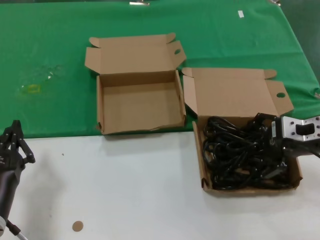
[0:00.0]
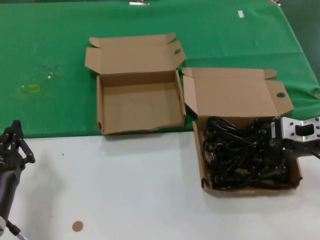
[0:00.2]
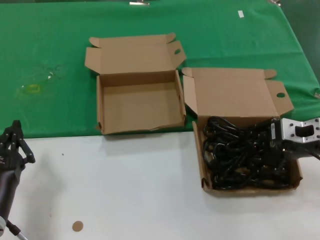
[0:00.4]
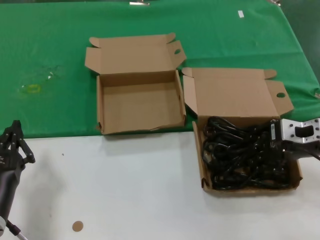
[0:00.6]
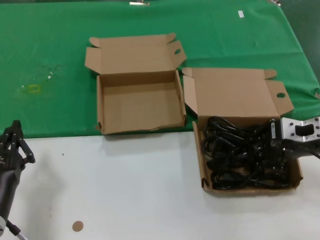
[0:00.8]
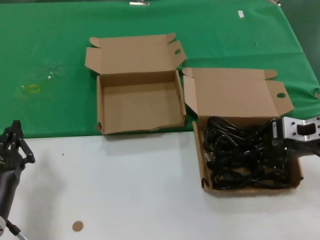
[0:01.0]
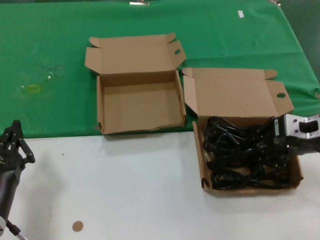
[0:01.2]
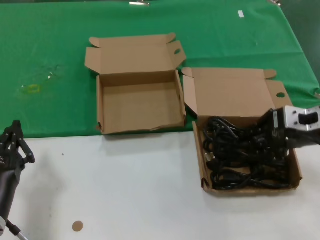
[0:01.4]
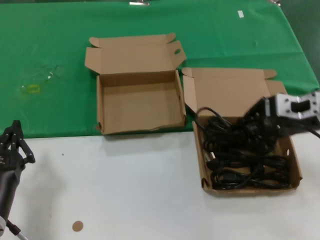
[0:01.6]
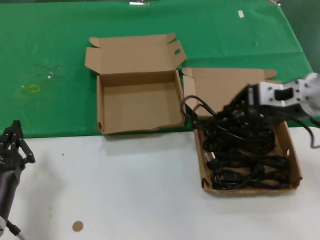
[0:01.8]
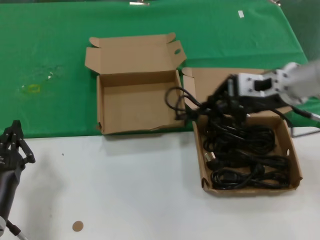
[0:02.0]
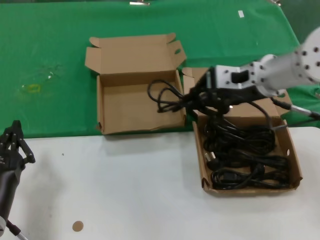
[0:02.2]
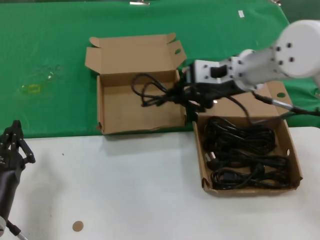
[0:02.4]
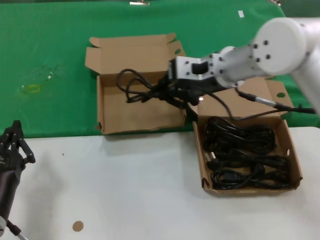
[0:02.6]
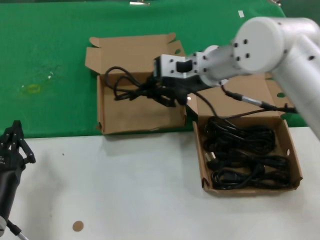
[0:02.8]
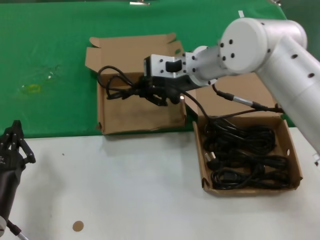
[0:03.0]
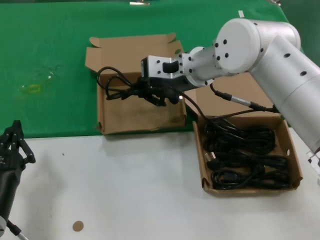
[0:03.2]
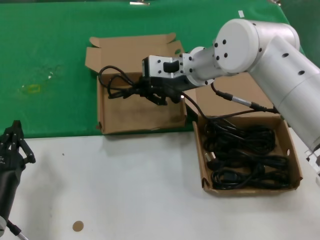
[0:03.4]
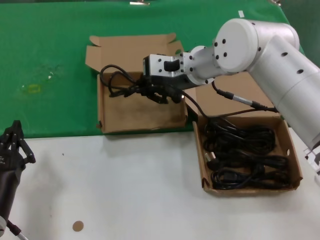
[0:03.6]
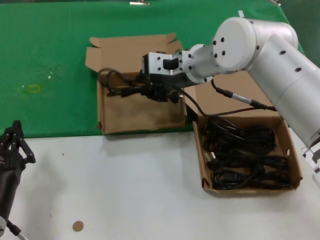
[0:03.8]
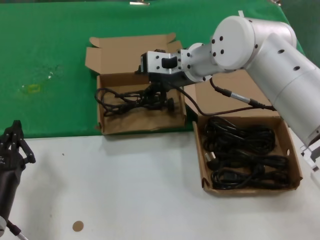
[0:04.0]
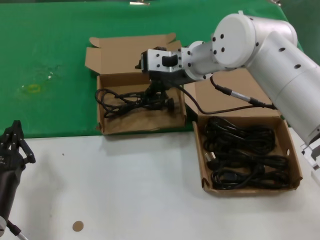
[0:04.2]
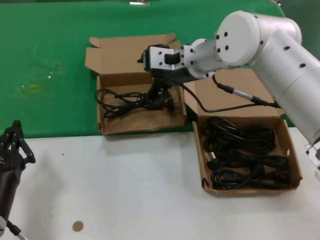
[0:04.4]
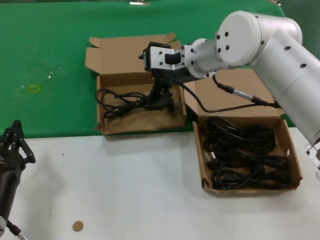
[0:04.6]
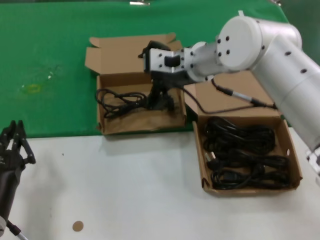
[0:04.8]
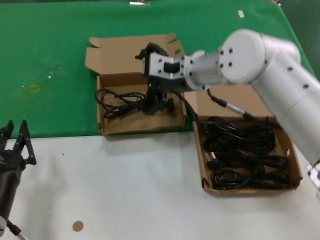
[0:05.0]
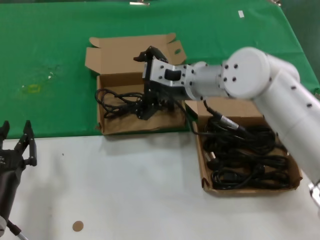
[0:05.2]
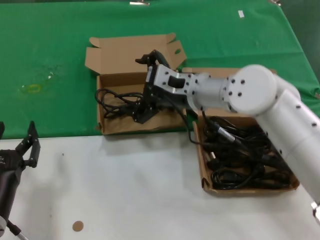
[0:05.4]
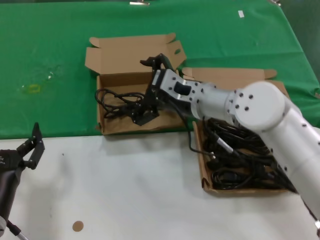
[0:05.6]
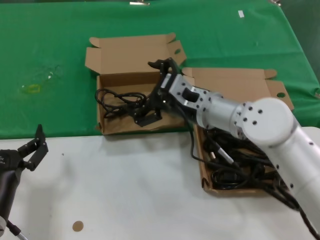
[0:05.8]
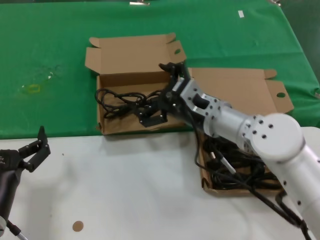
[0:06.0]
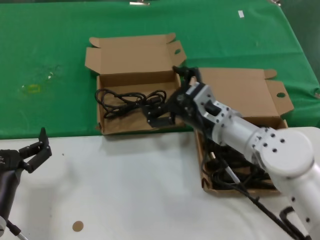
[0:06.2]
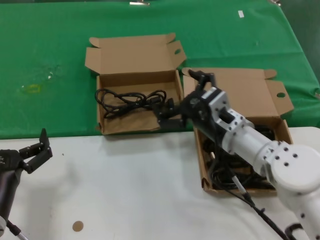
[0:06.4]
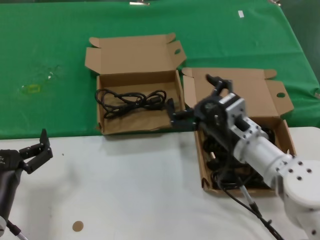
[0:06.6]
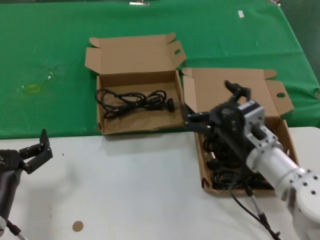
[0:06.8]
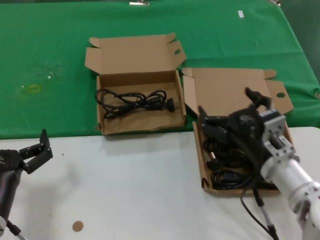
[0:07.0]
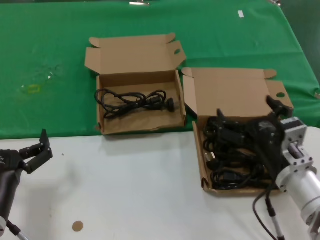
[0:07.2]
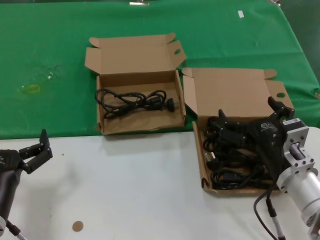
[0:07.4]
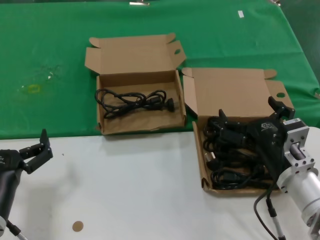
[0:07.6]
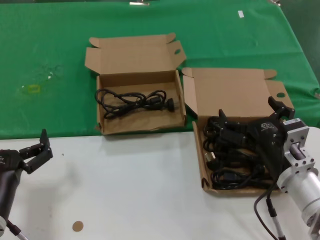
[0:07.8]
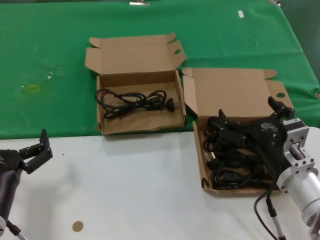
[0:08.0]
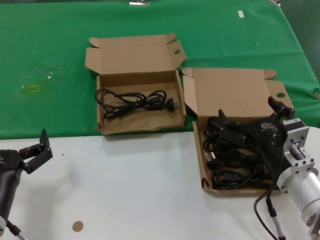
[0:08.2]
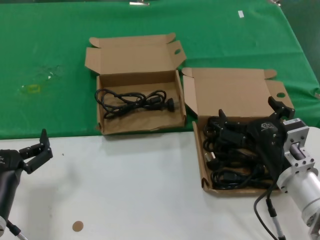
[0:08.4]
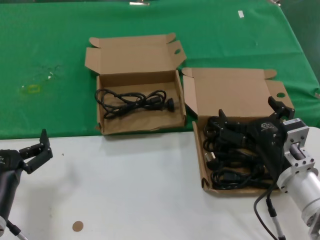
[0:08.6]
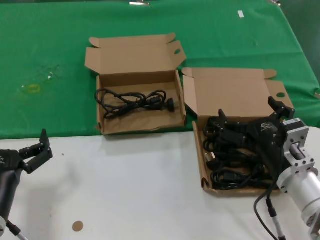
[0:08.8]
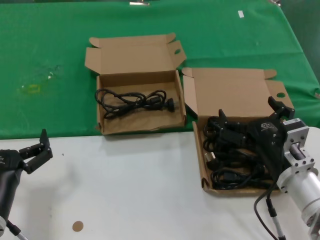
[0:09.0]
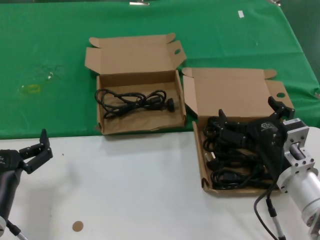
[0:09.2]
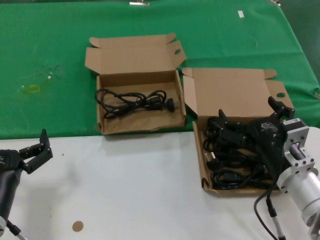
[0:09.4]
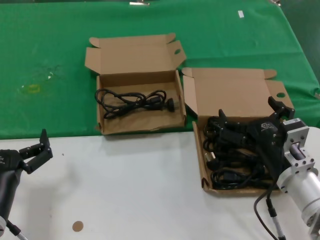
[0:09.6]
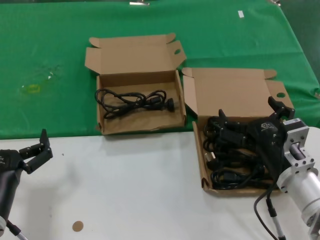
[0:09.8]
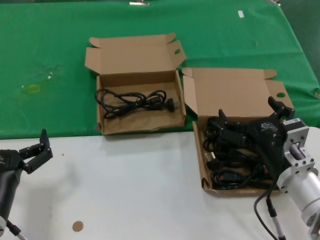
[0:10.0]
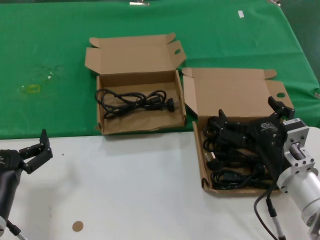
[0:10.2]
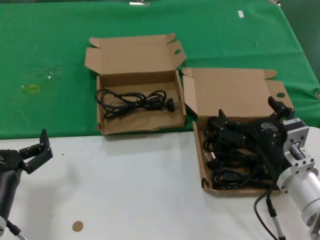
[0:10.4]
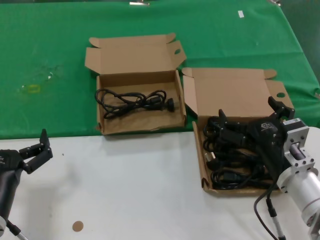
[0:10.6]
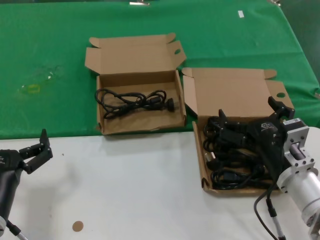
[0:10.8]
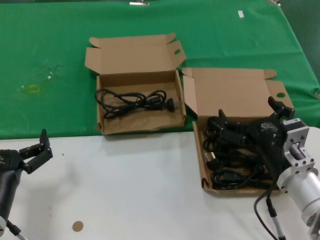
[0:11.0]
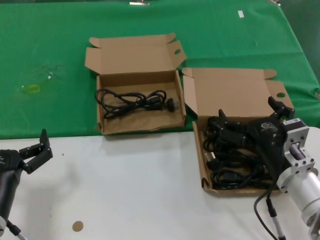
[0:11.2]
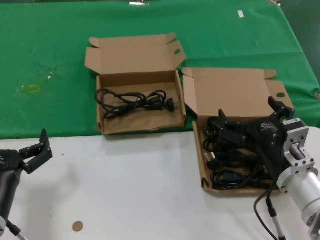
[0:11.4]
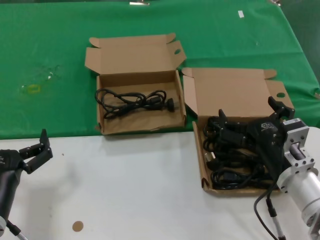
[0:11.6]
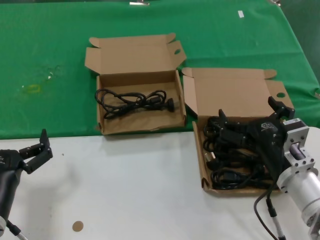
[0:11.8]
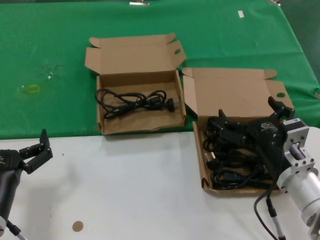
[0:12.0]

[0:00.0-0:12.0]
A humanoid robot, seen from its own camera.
Task of the whole recording: take the parts from the box containing them and put them into an empty box.
Step, 1.2 to 3.8 s: Place the data cable in the another box.
0.0 to 1.6 s: The right hand shifts by roughly 5 cm.
1.6 to 3.0 s: The right hand moves to the left and forward, roughly 25 cm.
3.0 to 4.4 s: The hands make only small movements.
4.4 to 6.0 s: The right hand heads downward and backward, covering some 15 cm.
6.0 to 7.6 s: The right hand goes roughly 20 cm backward, to the right and downward.
7.6 to 12.0 s: Both hands stay about where they are.

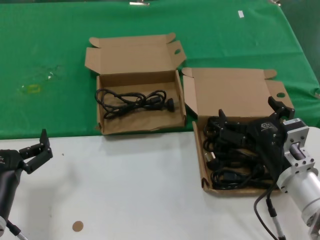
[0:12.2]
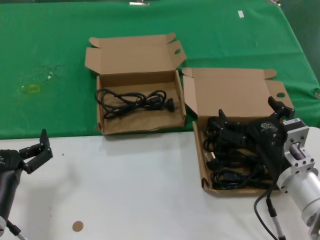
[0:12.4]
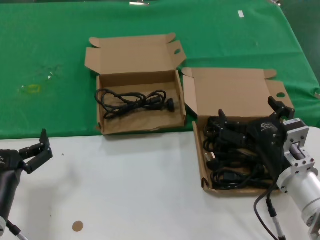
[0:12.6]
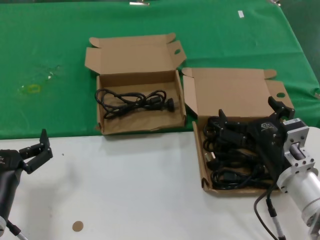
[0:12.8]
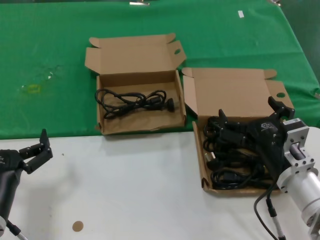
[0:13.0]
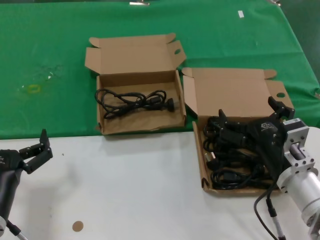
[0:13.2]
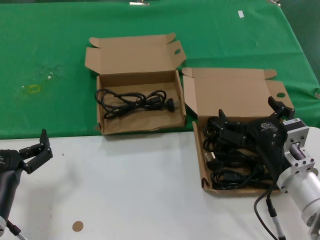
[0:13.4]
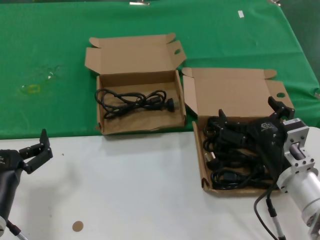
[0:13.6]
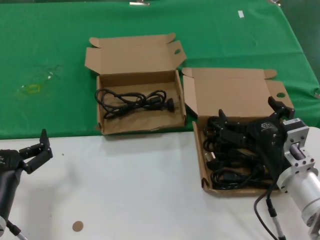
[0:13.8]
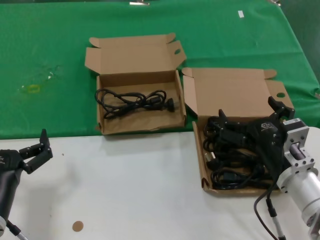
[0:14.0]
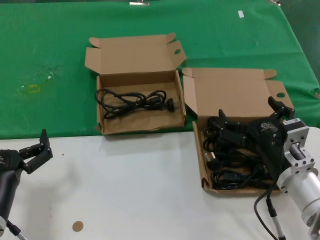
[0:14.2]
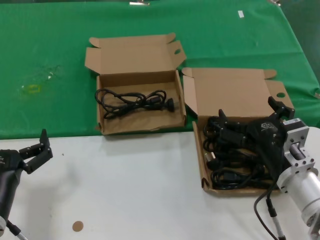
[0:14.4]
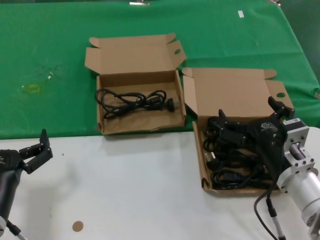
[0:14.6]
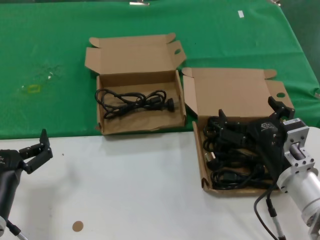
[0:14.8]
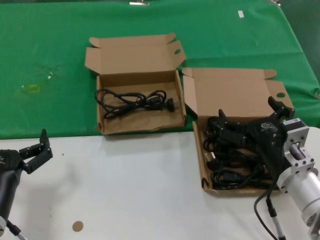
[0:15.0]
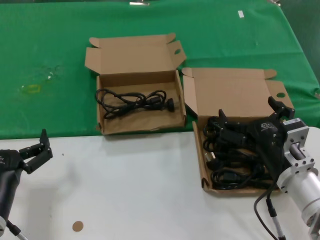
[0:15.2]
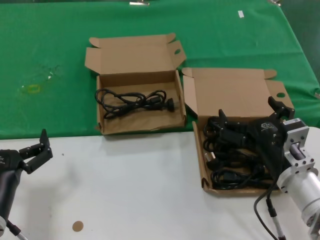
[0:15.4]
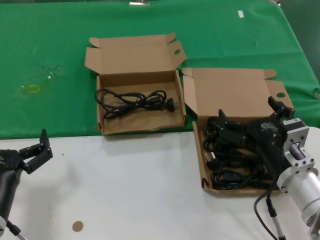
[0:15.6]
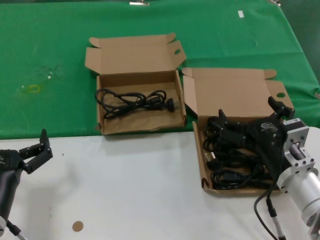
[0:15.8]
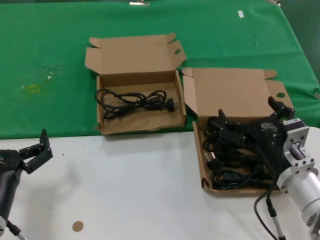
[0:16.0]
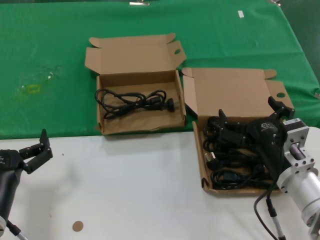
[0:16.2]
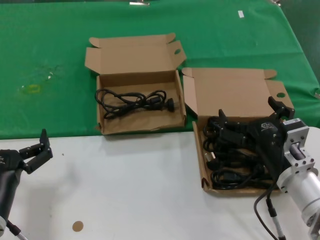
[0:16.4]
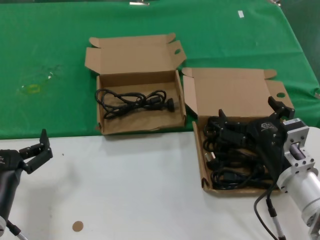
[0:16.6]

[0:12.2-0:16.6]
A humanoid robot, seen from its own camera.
Task of the whole recording: take the parts from the box containing them and put them into an empty box.
12.2 to 16.6 s: Both hands stay about where they are.

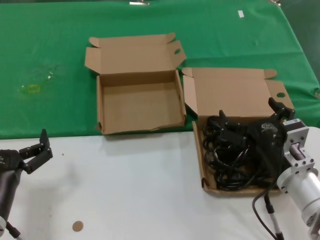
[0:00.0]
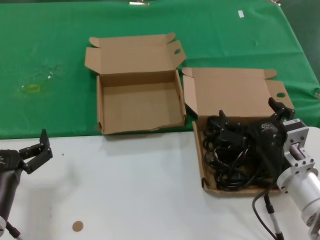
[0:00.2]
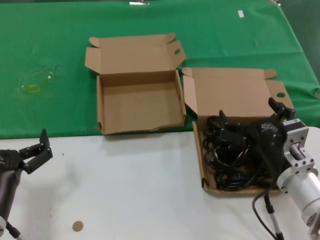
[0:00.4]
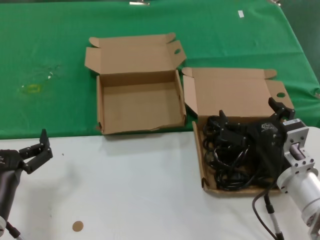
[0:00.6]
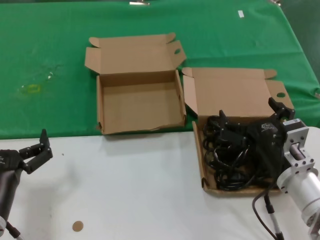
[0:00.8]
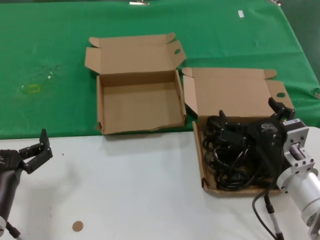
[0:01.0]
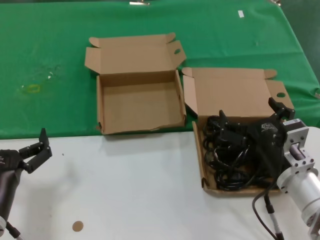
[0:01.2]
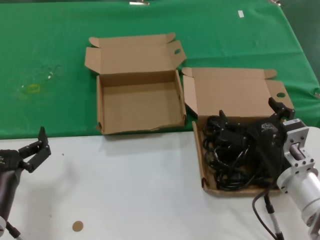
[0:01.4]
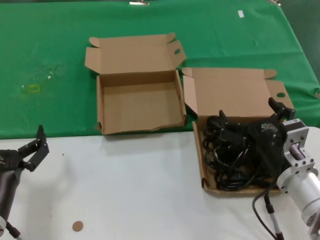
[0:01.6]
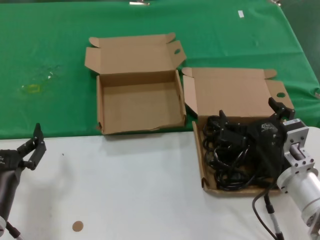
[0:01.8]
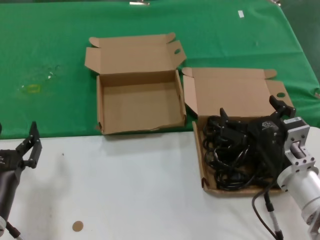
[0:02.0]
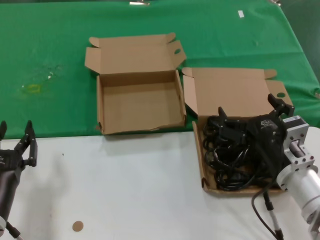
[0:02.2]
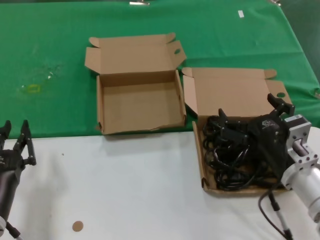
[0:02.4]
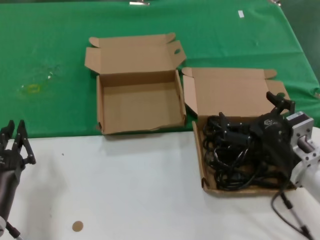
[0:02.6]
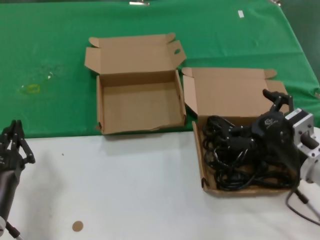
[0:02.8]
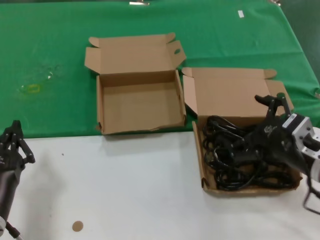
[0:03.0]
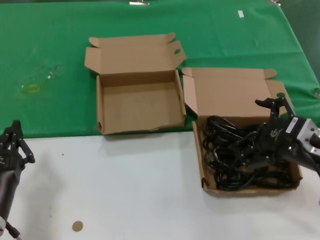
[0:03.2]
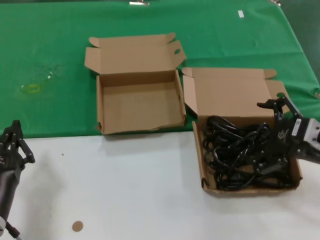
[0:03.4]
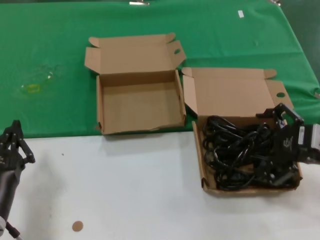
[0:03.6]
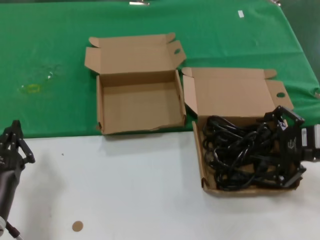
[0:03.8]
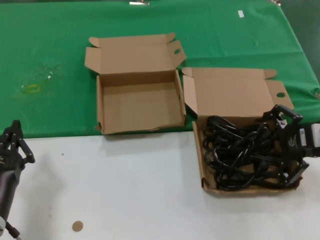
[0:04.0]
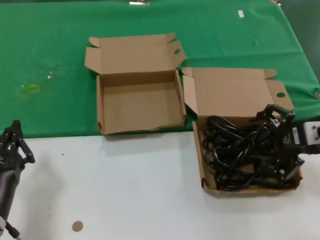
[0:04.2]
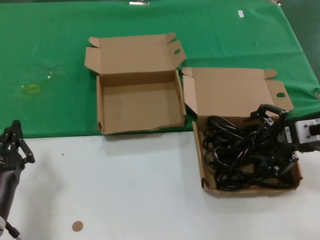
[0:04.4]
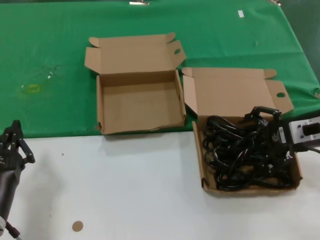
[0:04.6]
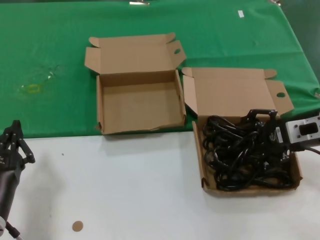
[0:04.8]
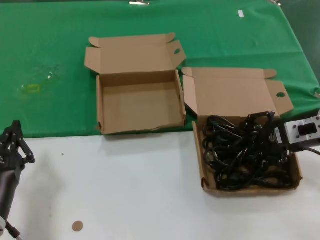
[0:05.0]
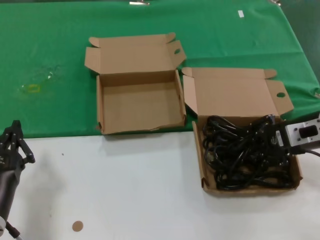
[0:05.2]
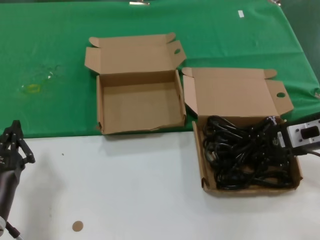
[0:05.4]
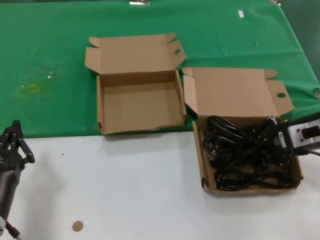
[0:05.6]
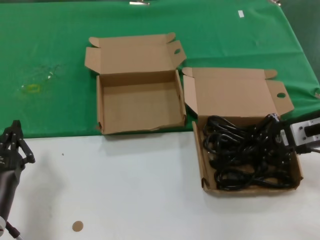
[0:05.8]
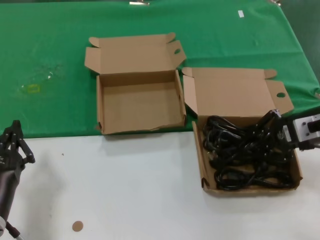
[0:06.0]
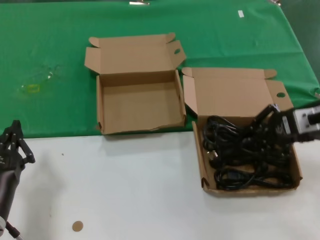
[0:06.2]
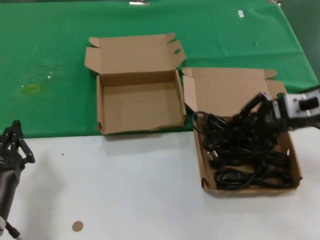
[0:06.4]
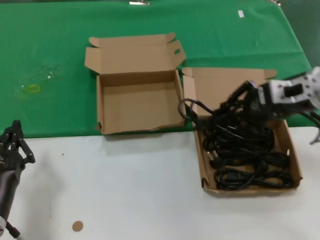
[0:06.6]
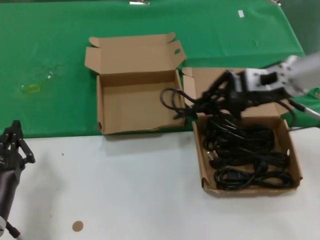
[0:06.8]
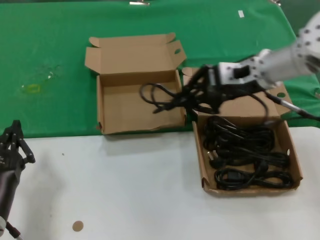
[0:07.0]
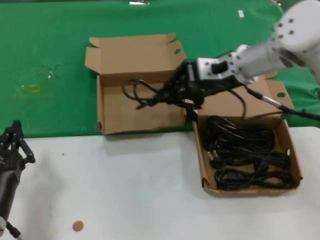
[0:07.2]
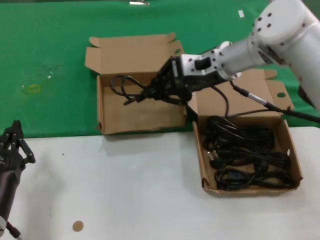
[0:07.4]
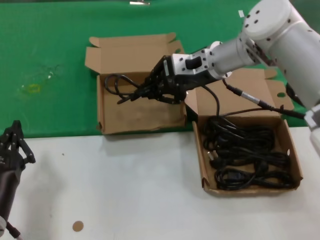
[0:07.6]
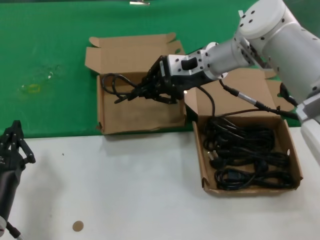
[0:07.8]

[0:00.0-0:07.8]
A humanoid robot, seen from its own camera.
Task of the whole recording: take the parts from the box containing them and put them into an empty box.
Step, 0.0 to 5.4 s: Grasp the data cable.
0.0 to 1.6 s: The two hands keep their place.
1.6 to 3.2 s: The right hand is displaced to the right and upward by some 10 cm.
3.2 to 4.6 s: The right hand is displaced forward by some 10 cm.
4.6 to 6.2 s: The hands stay close to where they were, moving slightly.
6.2 to 7.8 s: The right hand heads to the left and forward, covering about 25 cm.
